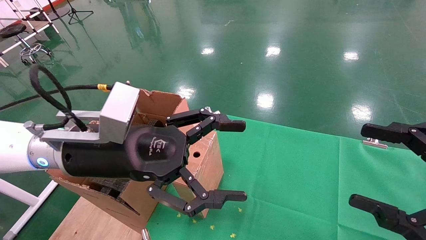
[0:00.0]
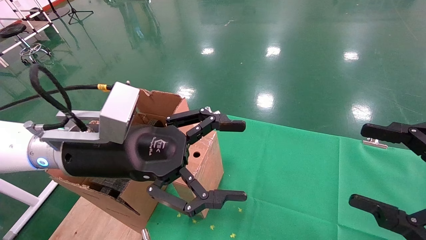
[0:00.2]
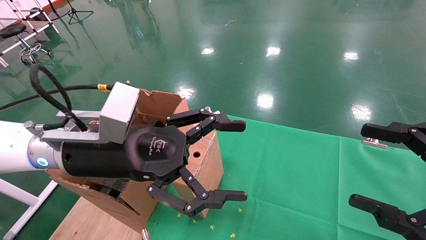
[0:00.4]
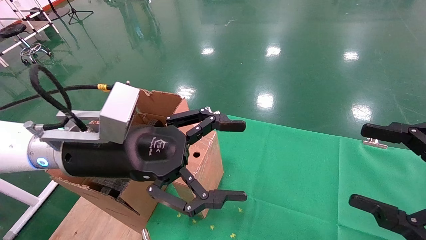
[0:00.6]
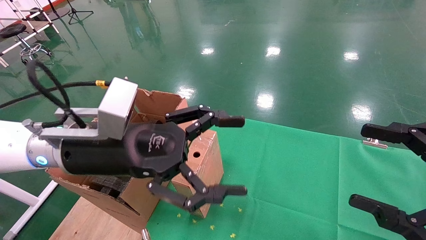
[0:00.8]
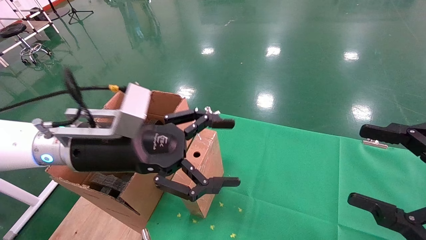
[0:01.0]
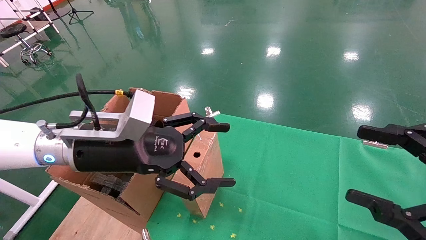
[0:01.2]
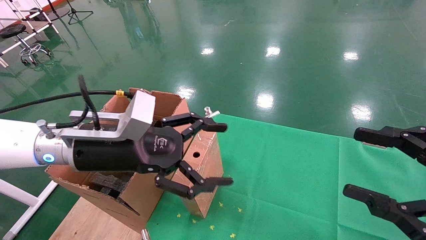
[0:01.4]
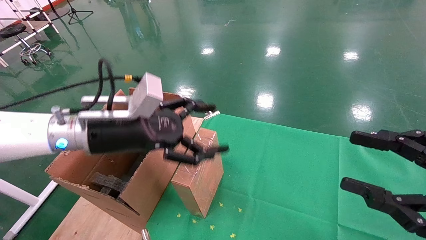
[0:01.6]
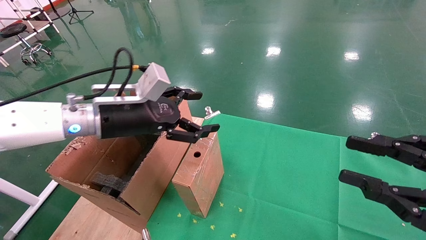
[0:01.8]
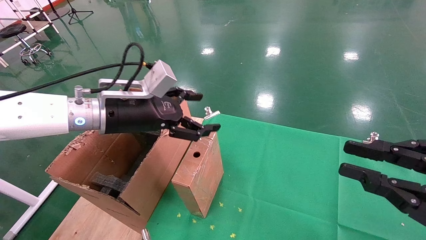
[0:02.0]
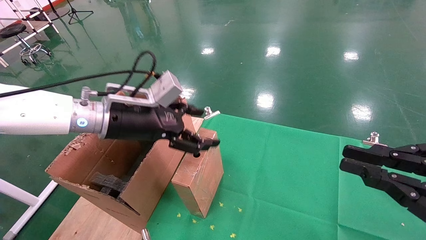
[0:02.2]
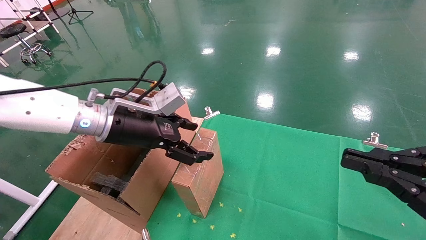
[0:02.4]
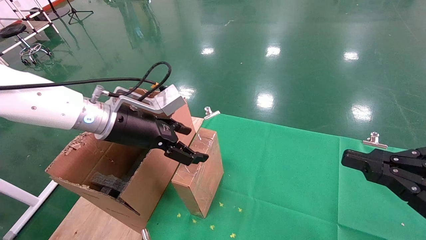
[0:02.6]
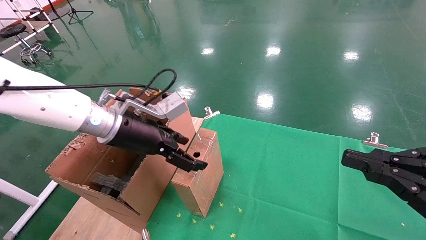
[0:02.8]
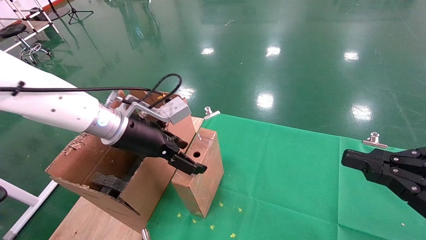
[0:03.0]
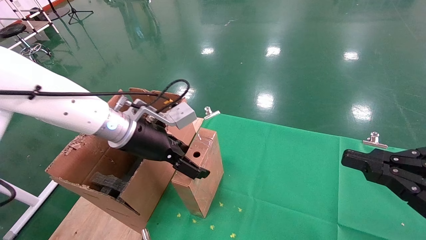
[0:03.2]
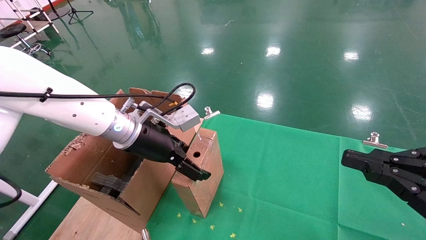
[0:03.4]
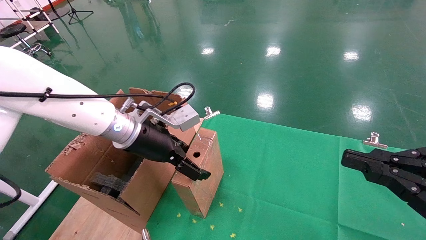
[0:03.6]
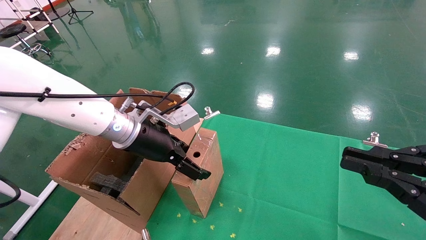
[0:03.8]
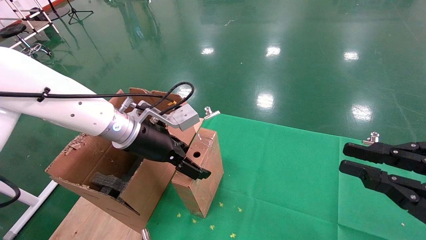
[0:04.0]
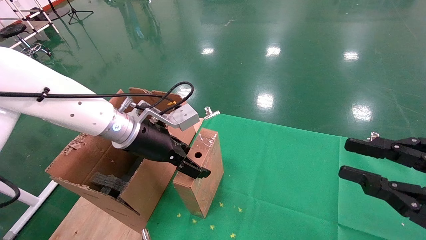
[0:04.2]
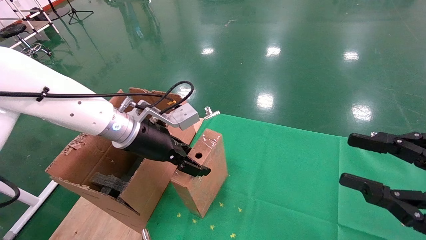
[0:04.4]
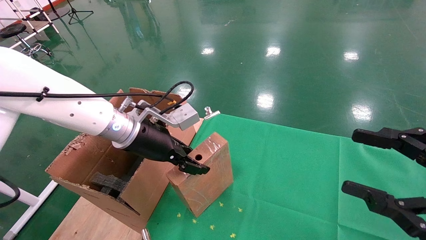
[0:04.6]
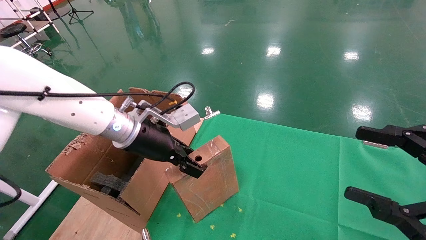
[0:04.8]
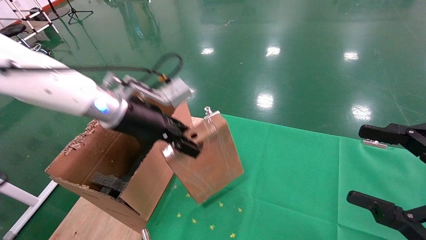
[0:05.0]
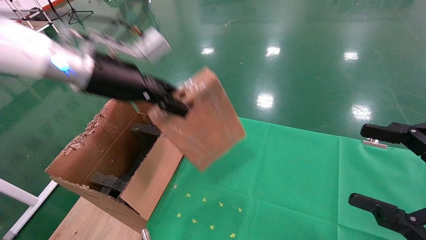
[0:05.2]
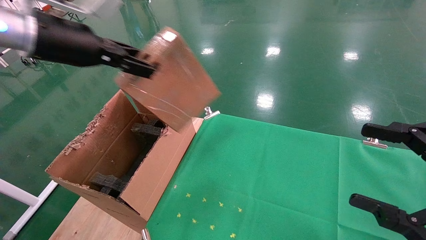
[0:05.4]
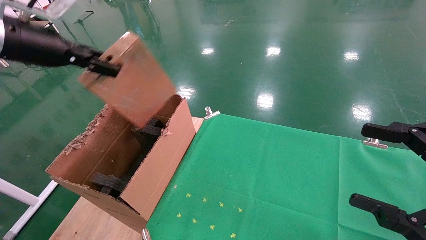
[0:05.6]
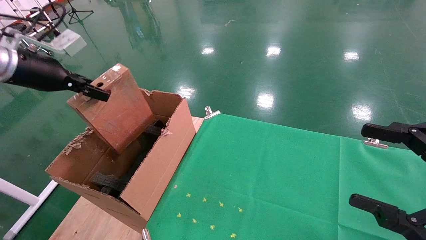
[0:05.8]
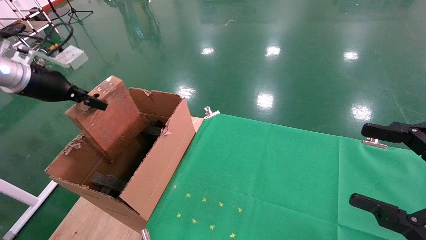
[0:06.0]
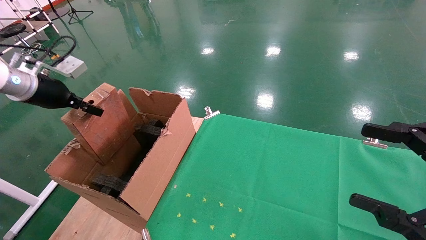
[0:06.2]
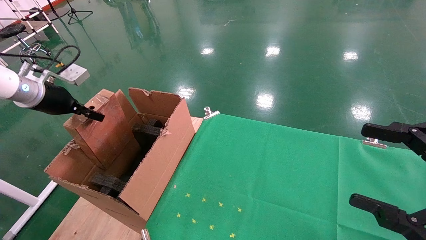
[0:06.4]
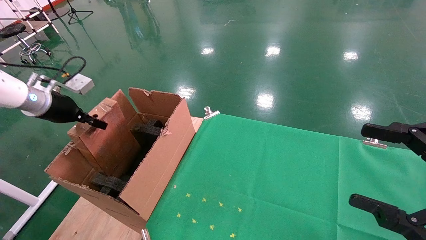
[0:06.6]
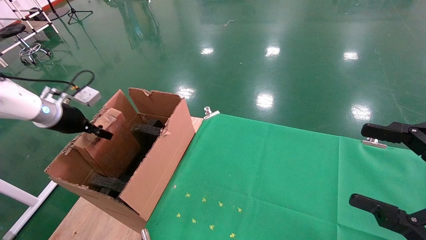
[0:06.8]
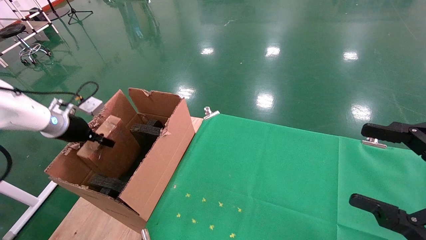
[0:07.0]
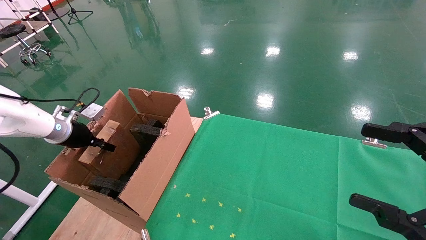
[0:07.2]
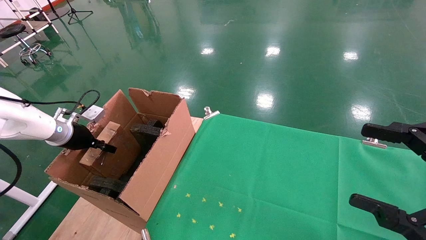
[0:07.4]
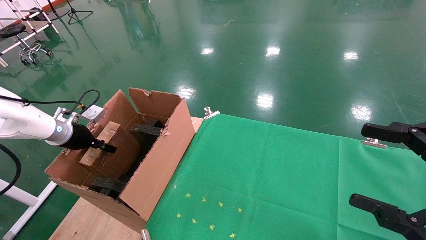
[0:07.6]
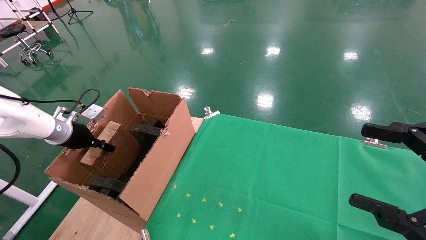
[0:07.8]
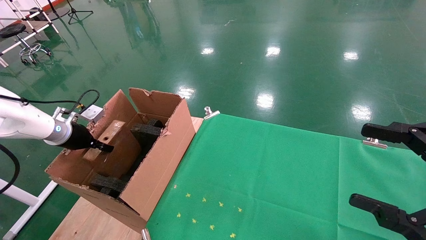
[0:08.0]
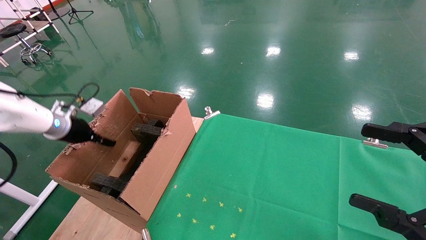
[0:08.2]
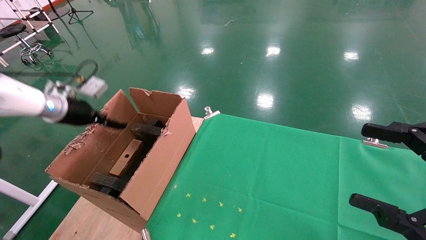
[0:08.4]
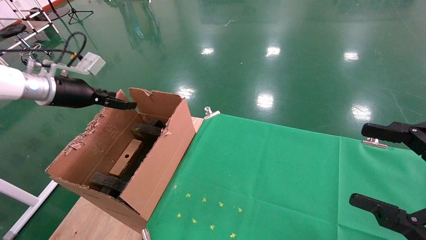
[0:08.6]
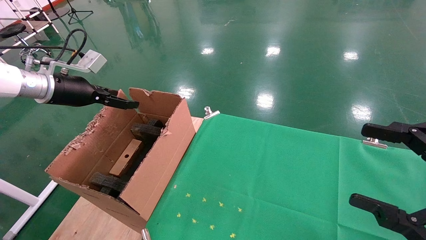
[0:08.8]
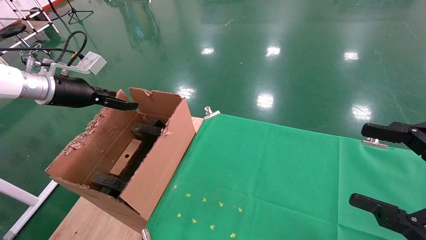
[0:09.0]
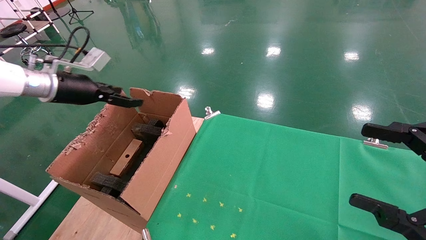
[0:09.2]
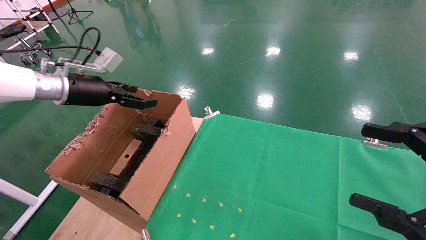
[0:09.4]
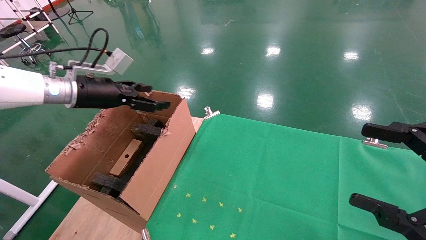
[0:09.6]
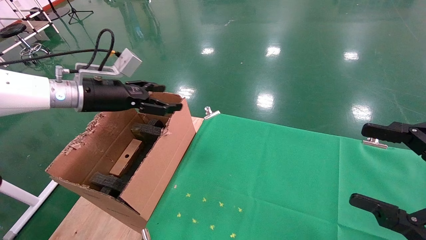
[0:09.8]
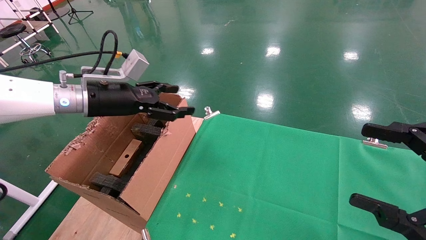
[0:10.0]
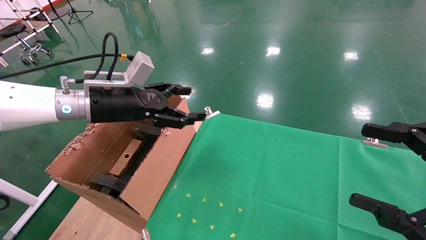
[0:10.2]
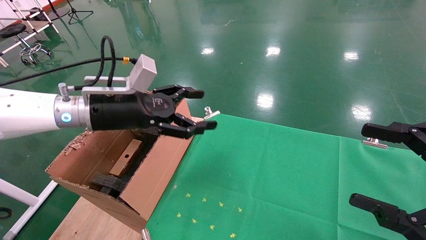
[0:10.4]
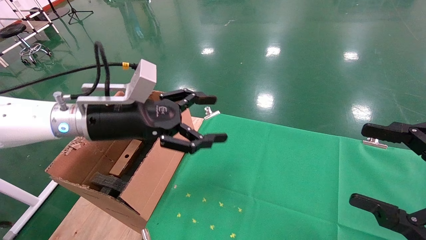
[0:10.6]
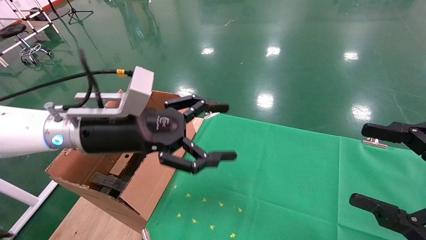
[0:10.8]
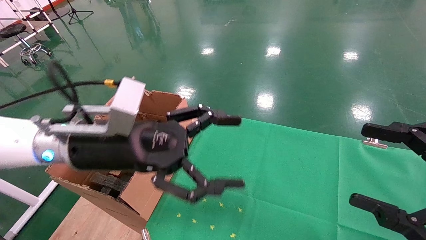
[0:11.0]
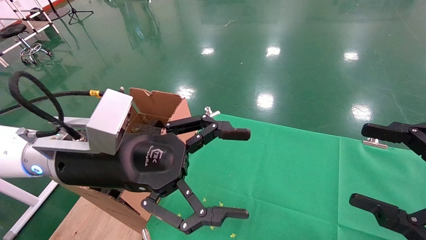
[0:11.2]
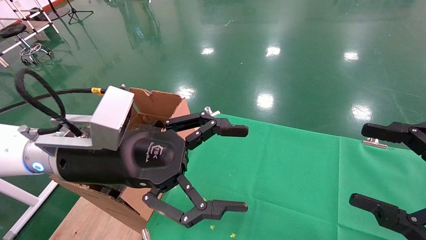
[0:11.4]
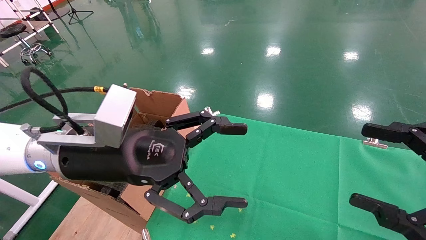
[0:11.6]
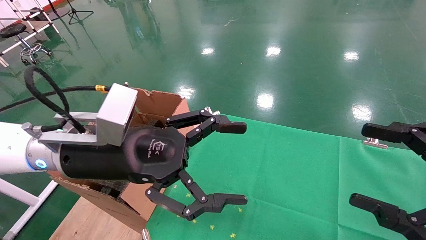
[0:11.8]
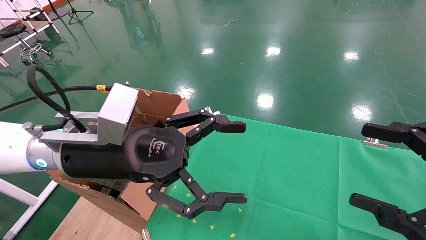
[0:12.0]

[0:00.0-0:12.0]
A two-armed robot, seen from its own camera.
Task of the whole recording: using a robotic arm to pick up a cardboard box and palace it the carton.
Step, 0:01.0 to 0:04.8: Pick up the mouse and the power cord paper box.
Step, 0:05.0 to 0:08.8: Place the mouse and the power cord paper box into the container.
0:00.0 to 0:01.6: The left gripper is displaced forward by about 5 cm.
0:01.6 to 0:03.0: The right gripper closes its fingers.
0:03.0 to 0:04.4: The right gripper opens up.
0:04.4 to 0:06.0: The right gripper opens its fingers. The left gripper heads to the left and upward, covering about 25 cm, and closes its fingers.
0:06.0 to 0:07.6: The left gripper is displaced downward by some 15 cm.
0:07.6 to 0:09.0: The left gripper shifts approximately 15 cm upward, and opens up.
0:09.0 to 0:10.4: The left gripper shifts approximately 15 cm to the right.
0:10.4 to 0:12.0: The left gripper heads backward and to the right, covering about 10 cm.

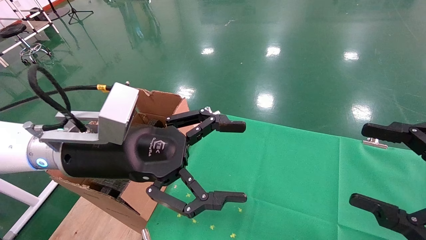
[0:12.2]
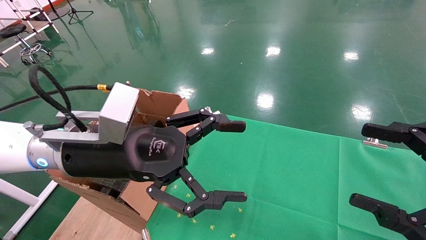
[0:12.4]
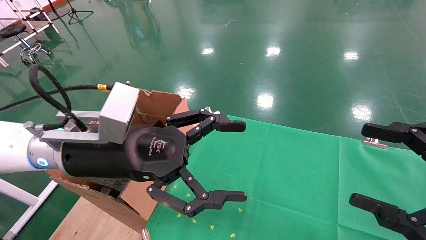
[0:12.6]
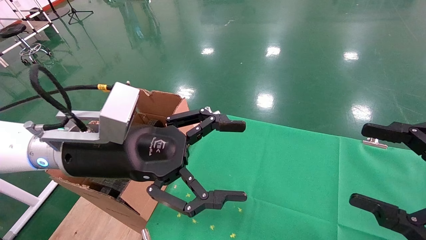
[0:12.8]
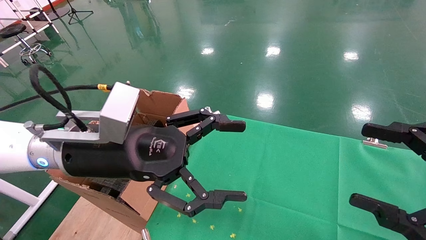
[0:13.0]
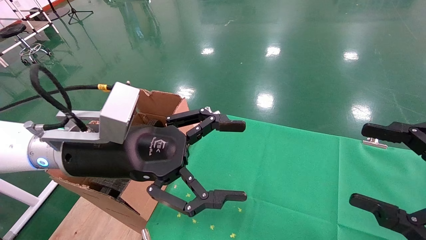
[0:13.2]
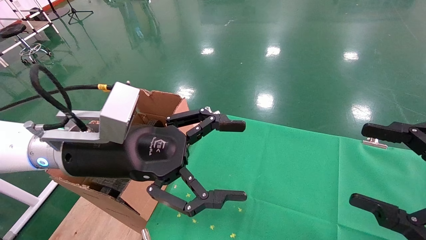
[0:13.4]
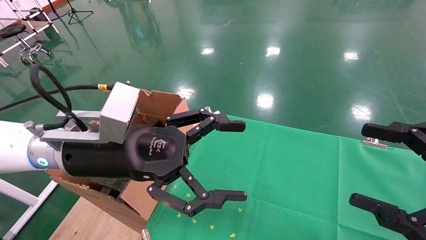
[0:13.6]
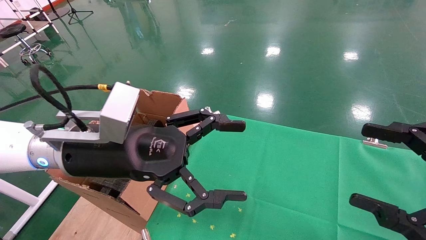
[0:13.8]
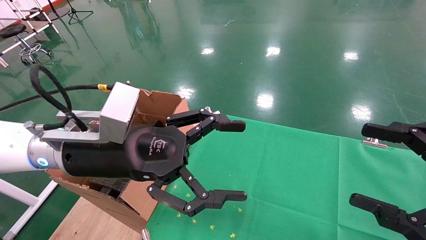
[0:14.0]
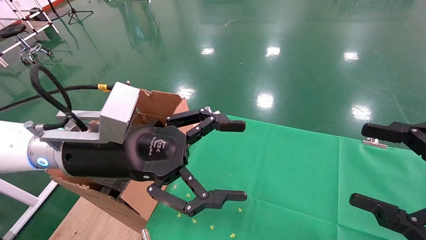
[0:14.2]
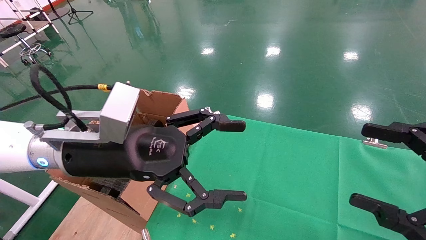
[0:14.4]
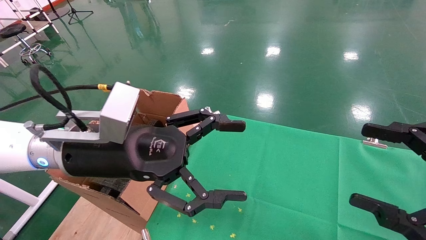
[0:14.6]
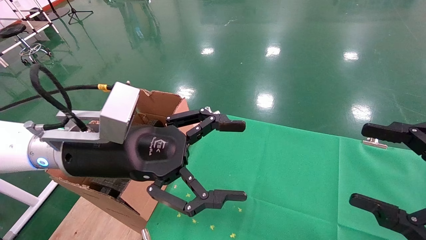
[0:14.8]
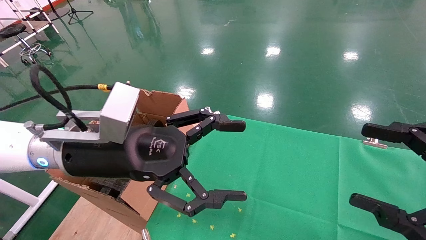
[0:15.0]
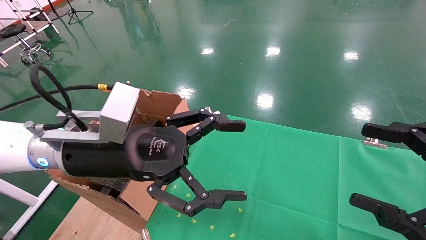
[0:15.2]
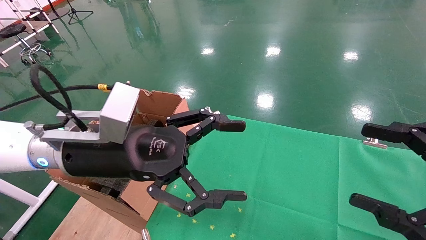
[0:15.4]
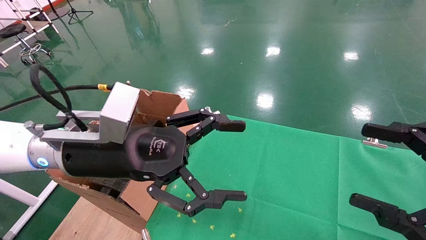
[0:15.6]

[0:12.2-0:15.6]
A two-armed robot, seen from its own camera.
Task of the whole recording: using a robotic arm to pick up a cardboard box and palace it the carton.
0:12.2 to 0:15.6: Both grippers stay put.
